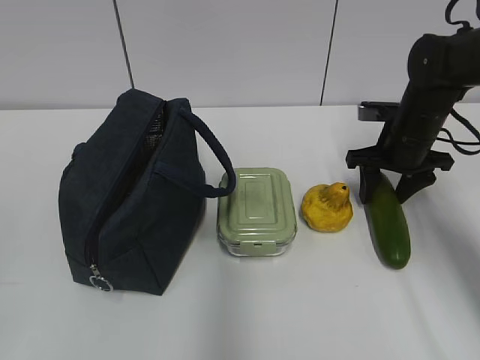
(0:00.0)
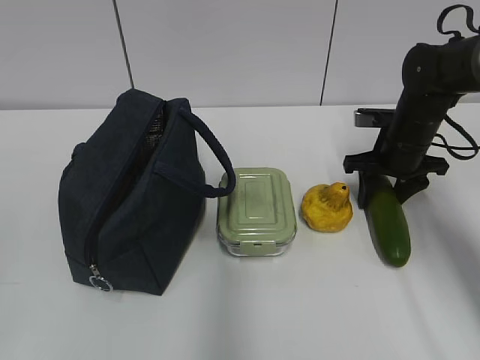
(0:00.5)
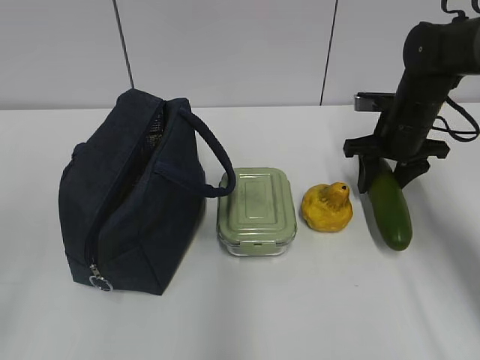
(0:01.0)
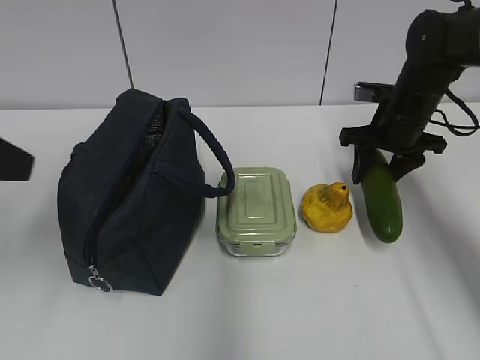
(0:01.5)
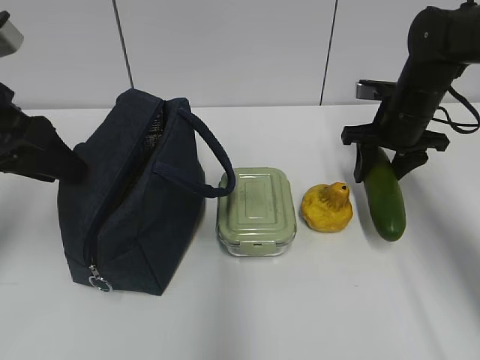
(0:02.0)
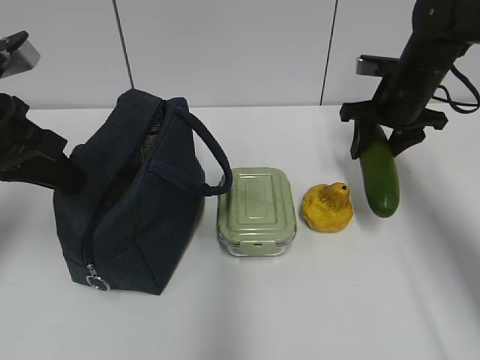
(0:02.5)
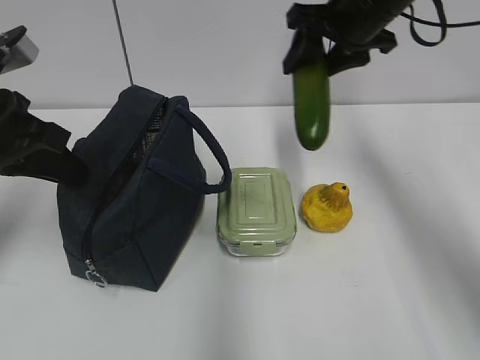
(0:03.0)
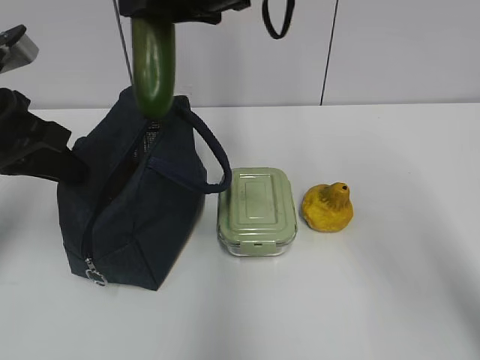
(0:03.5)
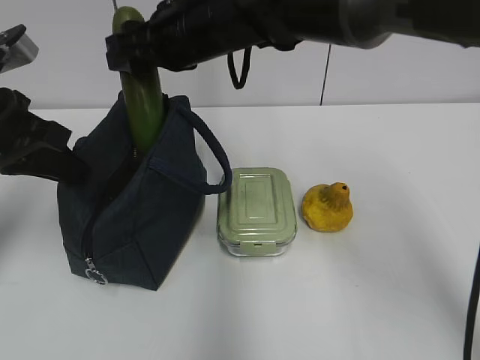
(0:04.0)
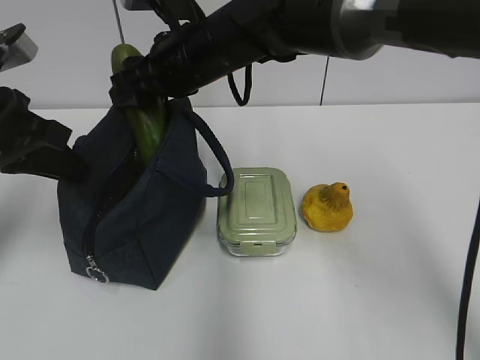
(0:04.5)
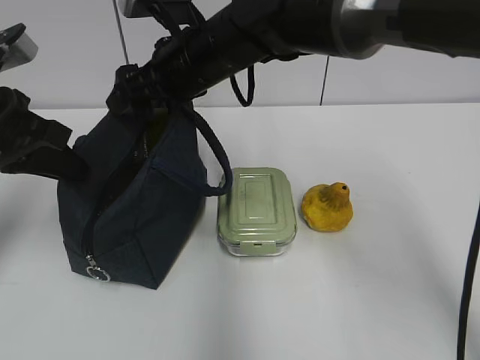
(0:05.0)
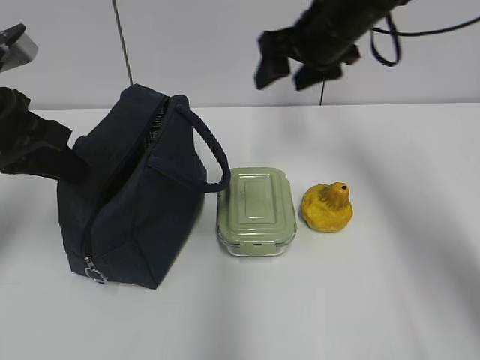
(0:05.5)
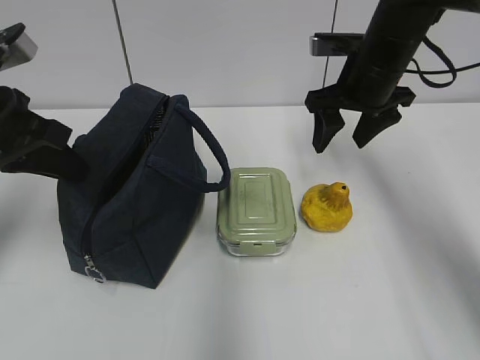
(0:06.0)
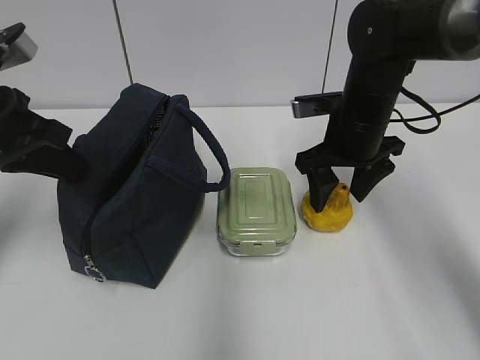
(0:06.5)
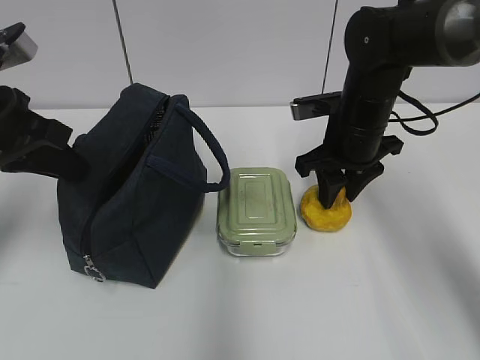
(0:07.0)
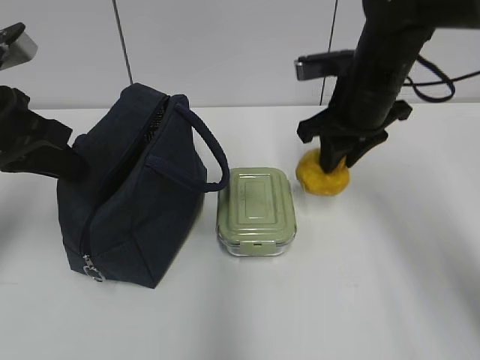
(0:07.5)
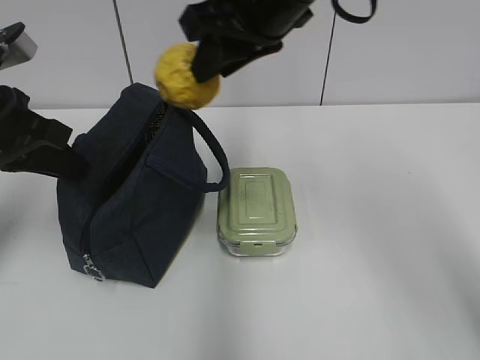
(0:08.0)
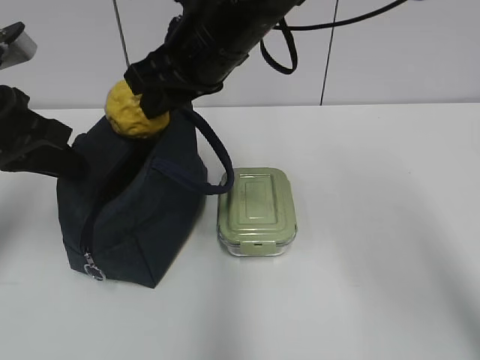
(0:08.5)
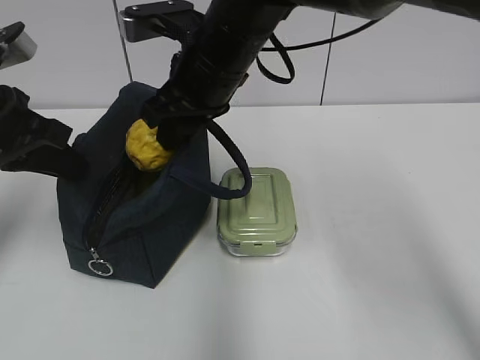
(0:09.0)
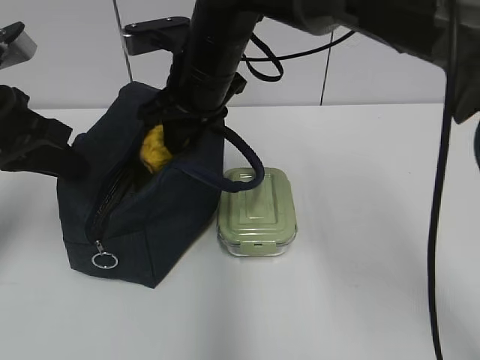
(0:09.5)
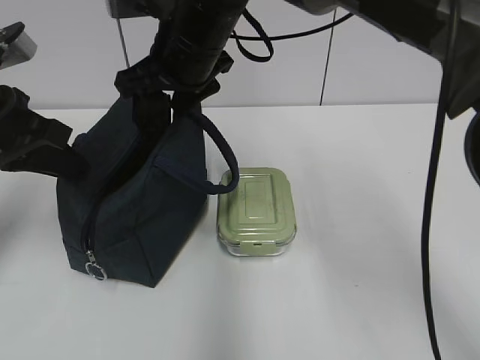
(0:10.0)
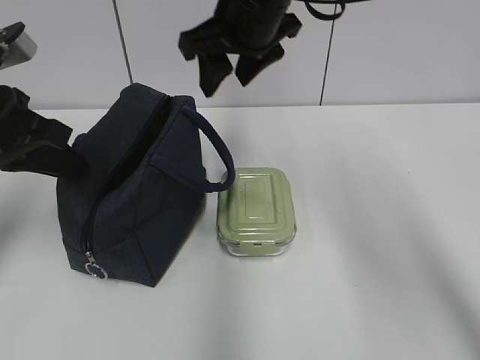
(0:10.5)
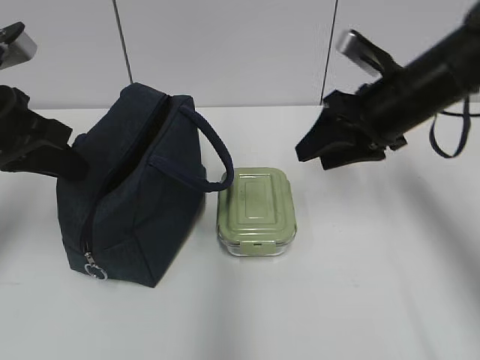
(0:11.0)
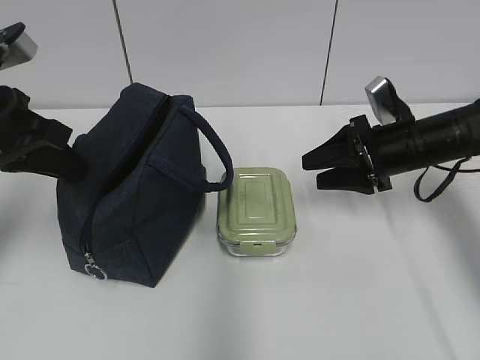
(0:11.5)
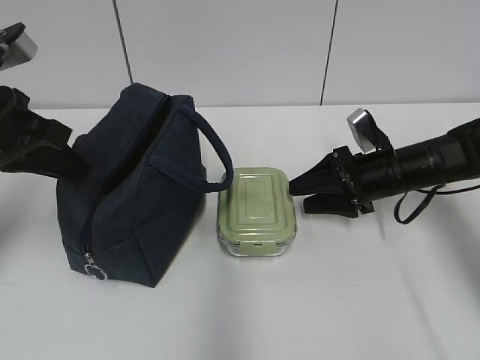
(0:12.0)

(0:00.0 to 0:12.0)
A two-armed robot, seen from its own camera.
Step, 0:01.0 - 0:02.0: Grab the lunch bag with your left hand.
Step, 0:03.0 - 0:04.5: Place it into the bag with your right hand.
Step, 0:05.5 - 0:07.0: Grab the pear with your right hand.
Step, 0:07.5 - 0:09.5: Place it into the bag with your right hand.
0:00.0 - 0:02.0: The left gripper heads forward, covering some 30 cm.
0:02.0 - 0:04.0: The right gripper heads to the left and upward, covering about 30 cm, while the left gripper closes up.
0:04.0 - 0:06.0: The right gripper goes approximately 20 cm to the right.
0:06.0 - 0:08.0: The right gripper moves to the left, upward and backward, approximately 20 cm, and closes up.
0:08.0 - 0:10.0: The right gripper goes roughly 10 cm to the left, downward and forward, and opens up.
0:10.0 - 0:12.0: The right gripper is displaced to the right and downward by about 30 cm.

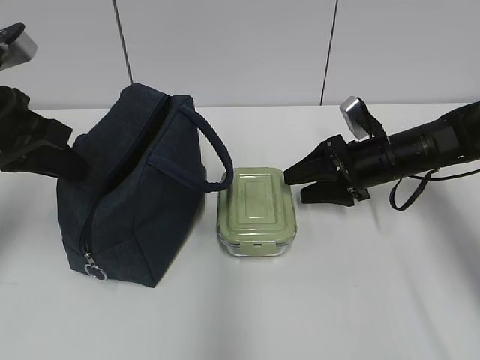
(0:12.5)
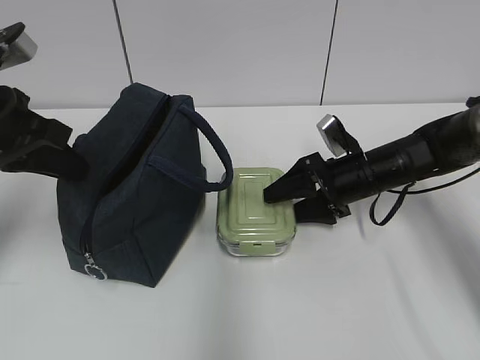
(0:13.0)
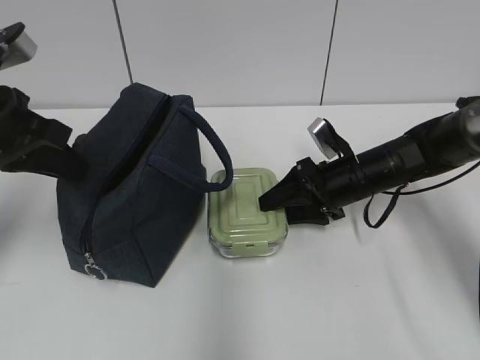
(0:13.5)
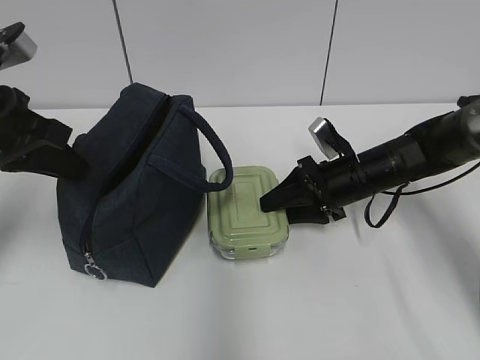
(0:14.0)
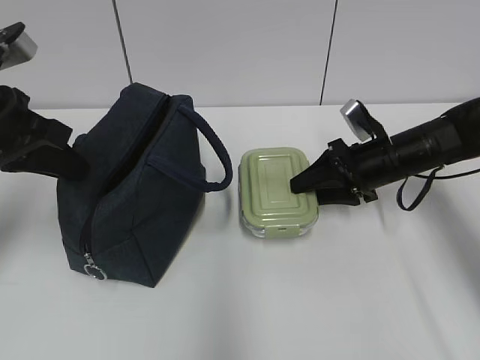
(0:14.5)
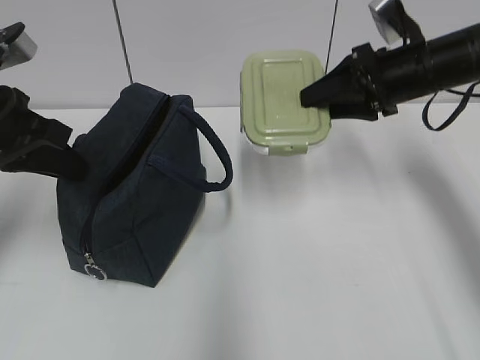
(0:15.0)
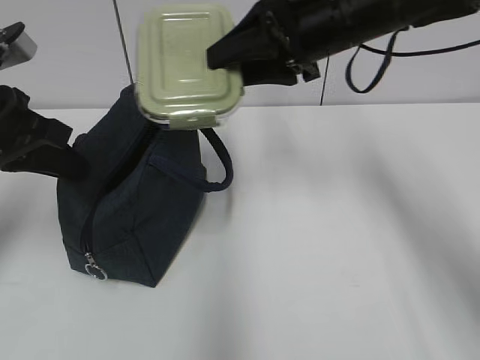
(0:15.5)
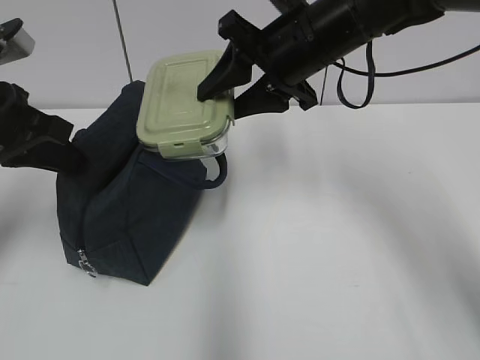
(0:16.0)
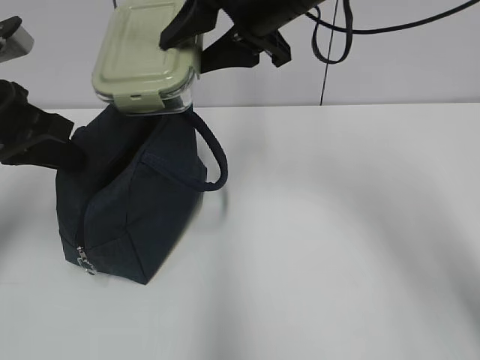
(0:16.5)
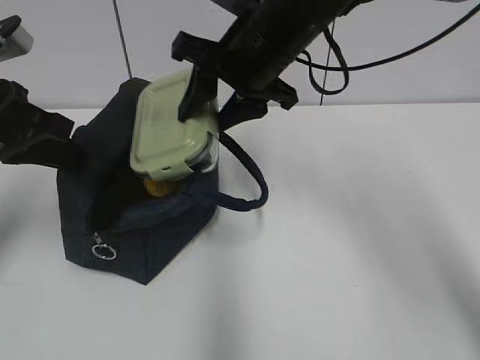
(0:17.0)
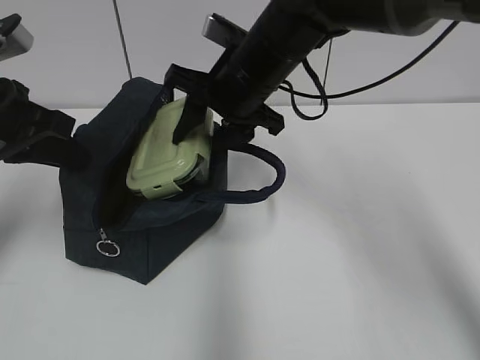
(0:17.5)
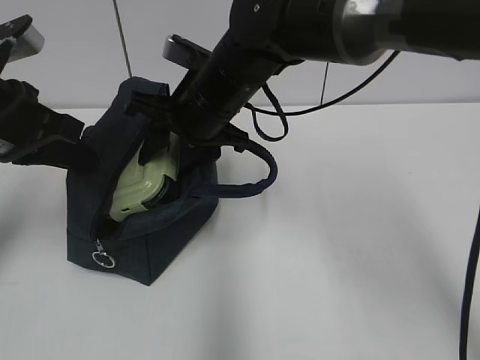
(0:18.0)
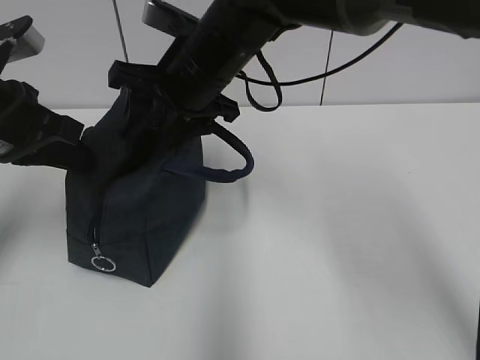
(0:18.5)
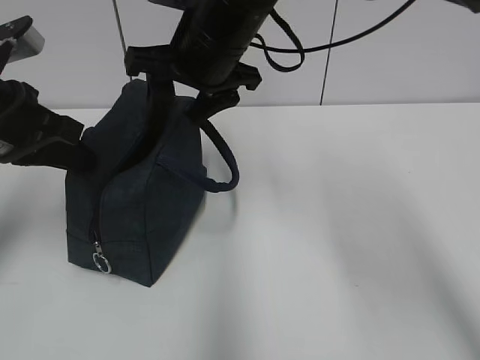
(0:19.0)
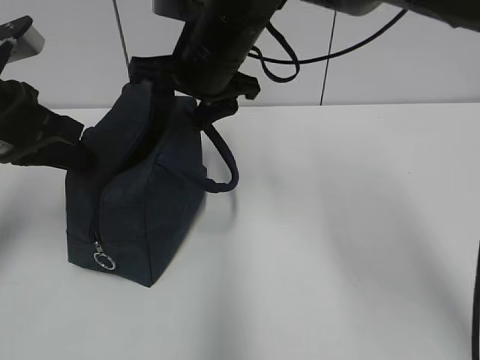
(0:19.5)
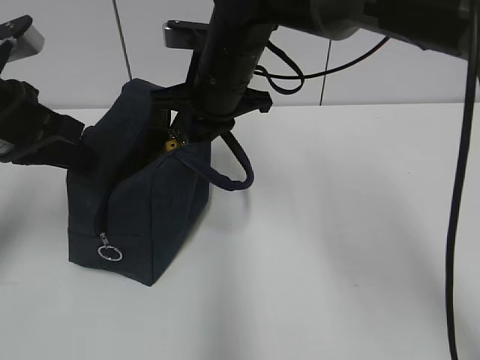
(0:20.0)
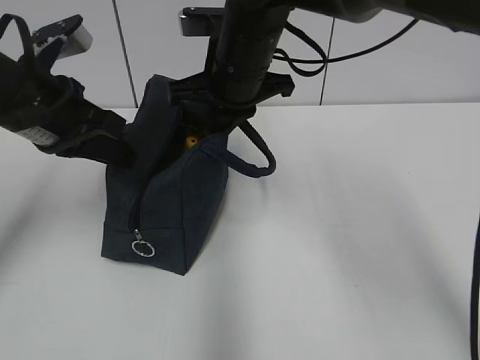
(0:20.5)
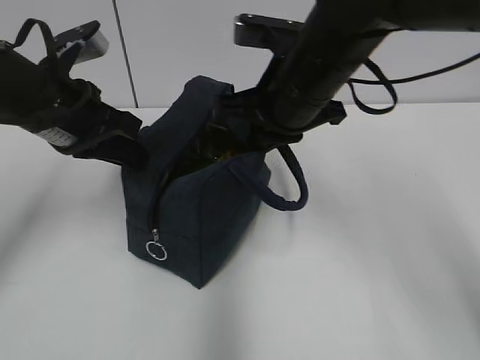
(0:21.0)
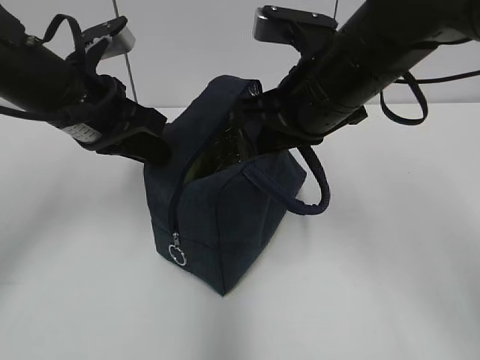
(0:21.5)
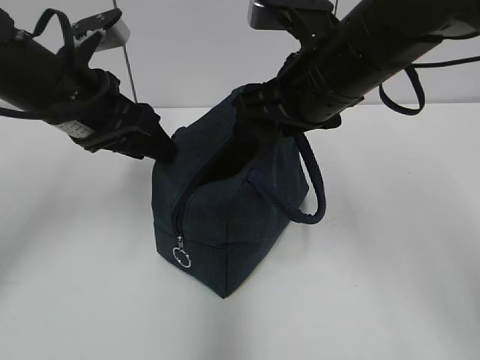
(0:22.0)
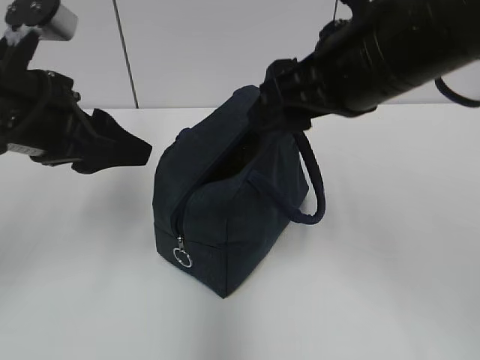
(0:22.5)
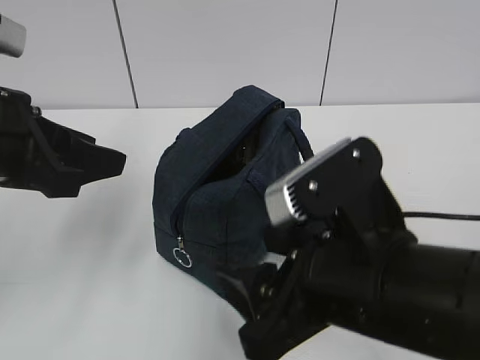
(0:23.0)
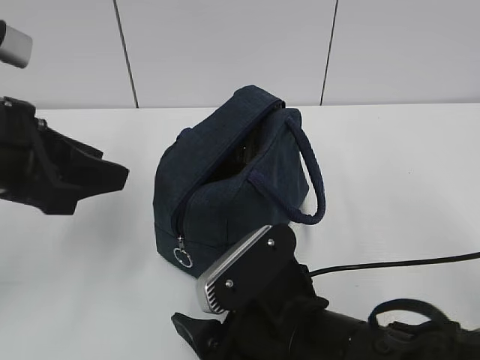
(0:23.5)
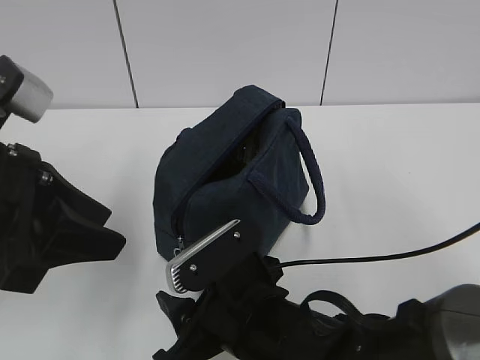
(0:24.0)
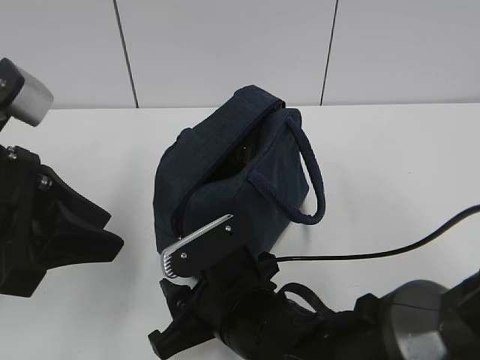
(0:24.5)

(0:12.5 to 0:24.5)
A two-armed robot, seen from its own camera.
Step, 0:18.5 - 0:19.5: Grab the lunch bag with your right hand.
Step, 0:20.0 - 0:21.5: Move the lunch bag to the right.
0:12.5 - 0:14.5: There are only small adjustments of the grippers.
0:14.5 - 0:16.5: The right gripper travels upward and to the left by some 25 cm.
0:16.5 - 0:18.5: The right gripper is displaced to the left and downward by roughly 10 cm.
0:18.5 - 0:20.5: The right gripper closes its fingers.
0:20.5 - 0:22.5: The right gripper moves backward and to the right, approximately 15 cm, and opens its fingers, while the left gripper shifts roughly 5 cm backward, and opens.
0:22.5 - 0:24.5: The left gripper travels backward by some 5 cm. The right gripper travels downward and to the left by about 25 cm.

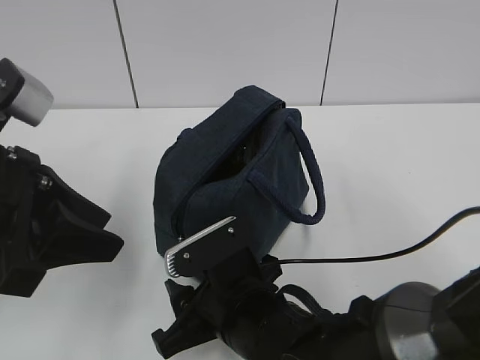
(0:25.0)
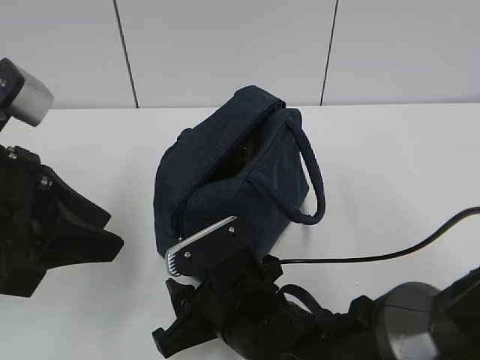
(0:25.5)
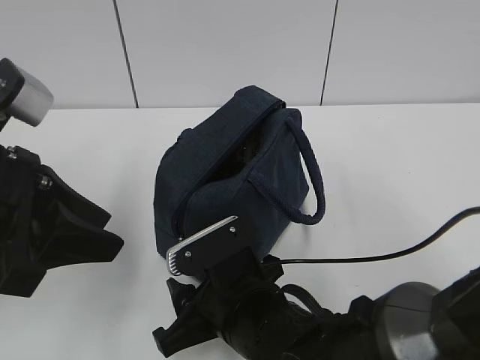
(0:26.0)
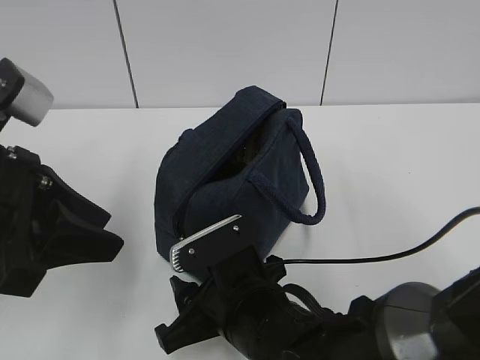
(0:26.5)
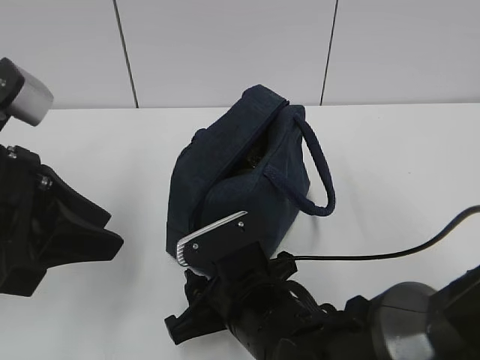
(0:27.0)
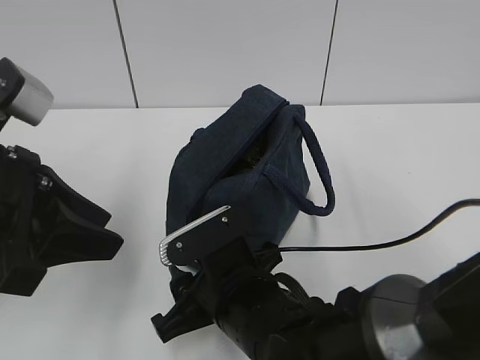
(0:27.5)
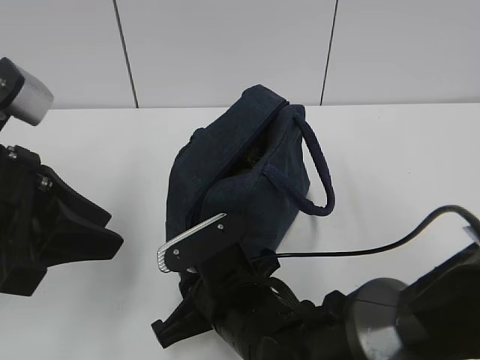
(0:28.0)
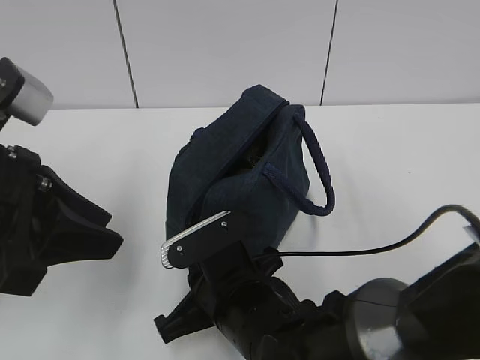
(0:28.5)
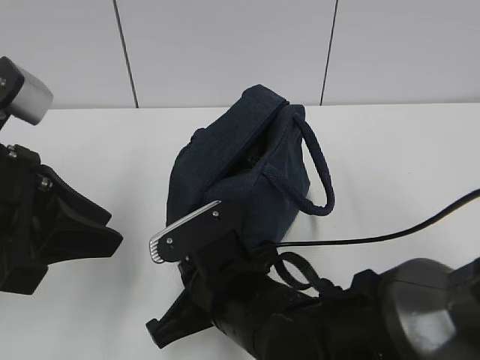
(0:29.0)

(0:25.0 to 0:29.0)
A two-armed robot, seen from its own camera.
0:25.0 - 0:27.0: There are only small adjustments of the grippers.
0:27.0 - 0:29.0: The right gripper closes up.
